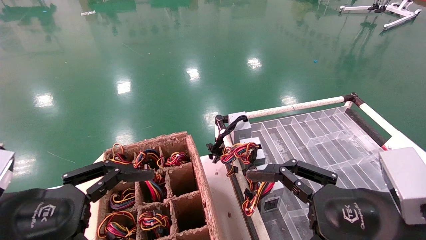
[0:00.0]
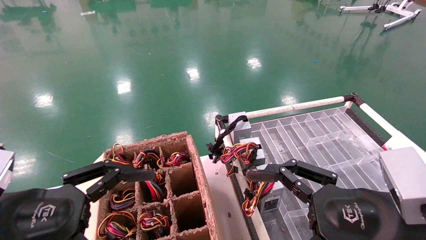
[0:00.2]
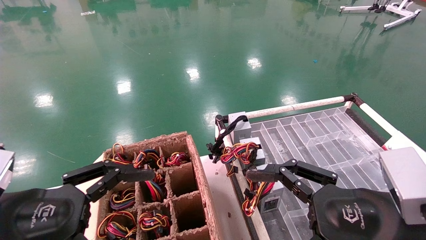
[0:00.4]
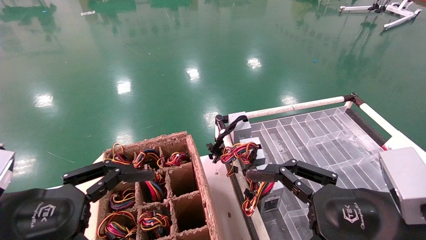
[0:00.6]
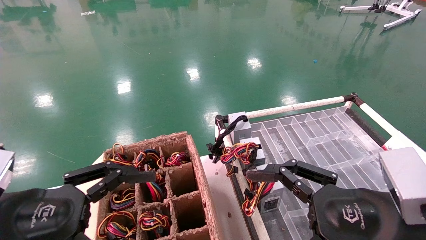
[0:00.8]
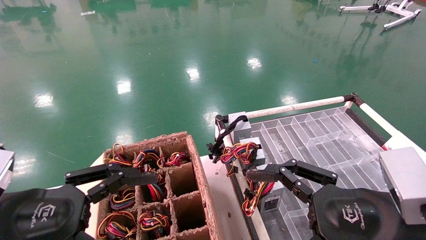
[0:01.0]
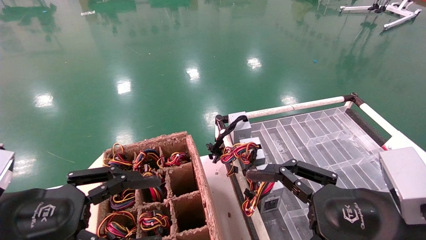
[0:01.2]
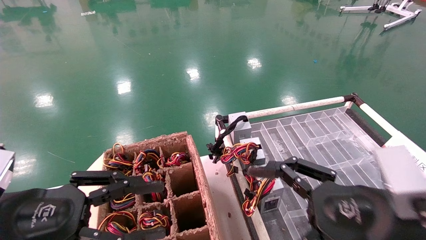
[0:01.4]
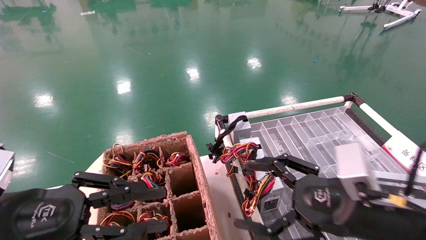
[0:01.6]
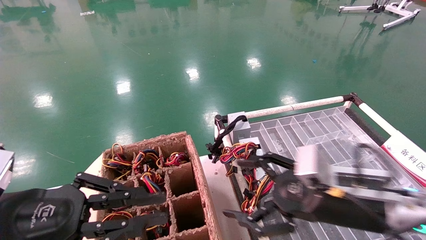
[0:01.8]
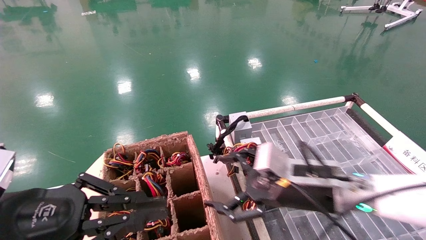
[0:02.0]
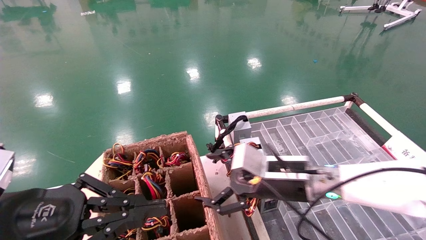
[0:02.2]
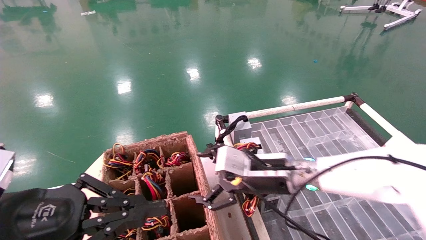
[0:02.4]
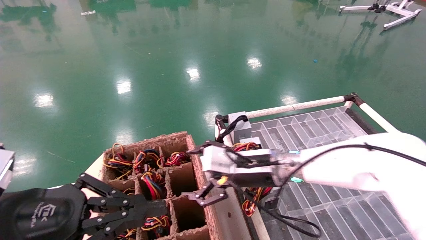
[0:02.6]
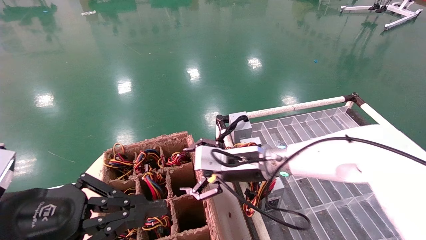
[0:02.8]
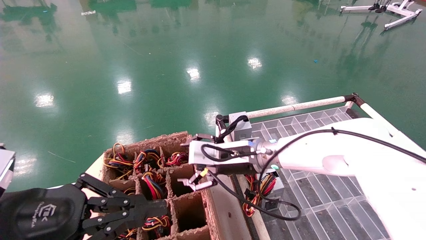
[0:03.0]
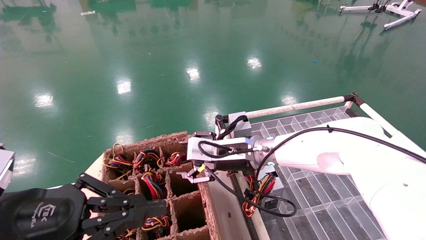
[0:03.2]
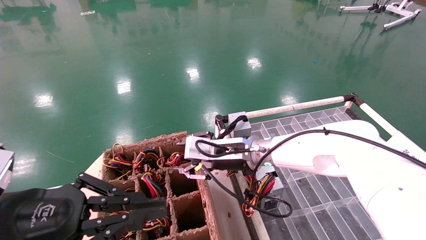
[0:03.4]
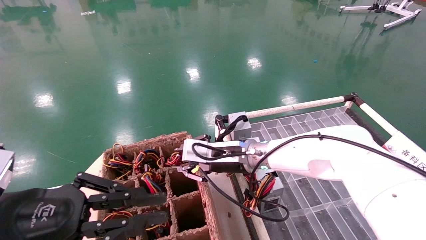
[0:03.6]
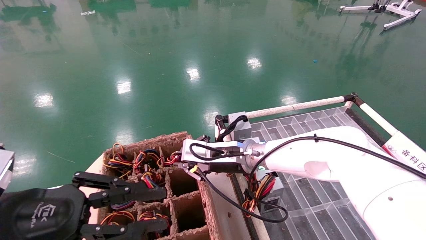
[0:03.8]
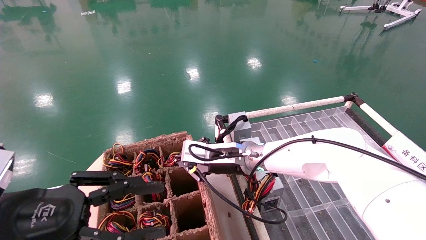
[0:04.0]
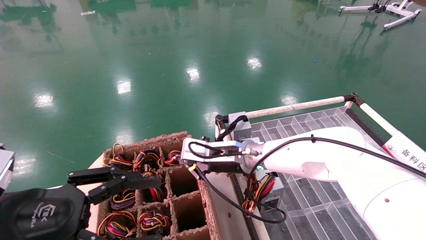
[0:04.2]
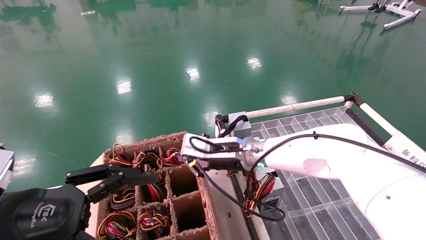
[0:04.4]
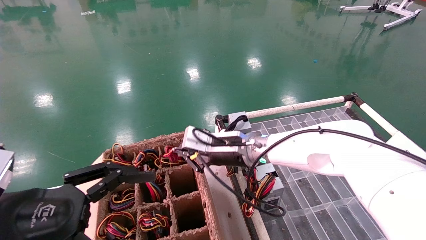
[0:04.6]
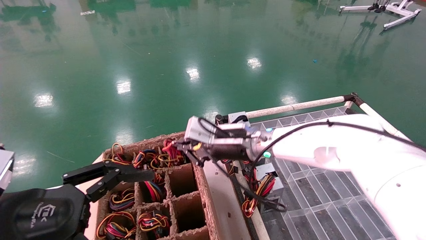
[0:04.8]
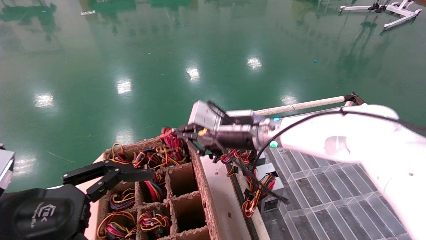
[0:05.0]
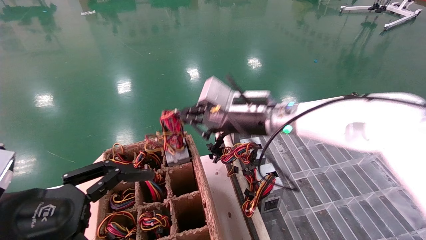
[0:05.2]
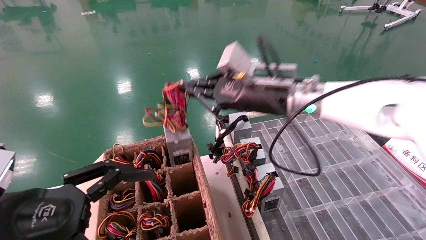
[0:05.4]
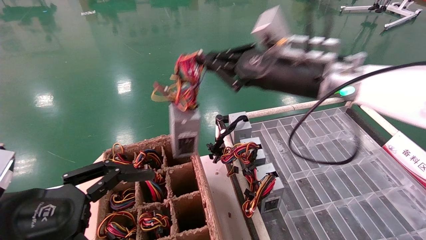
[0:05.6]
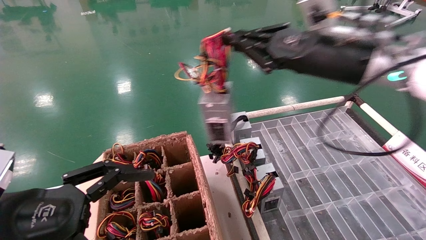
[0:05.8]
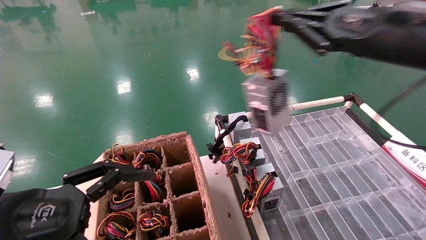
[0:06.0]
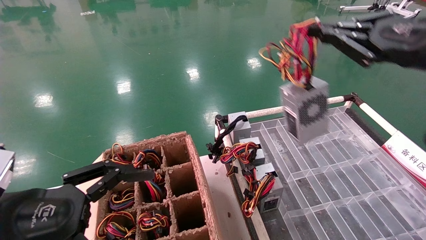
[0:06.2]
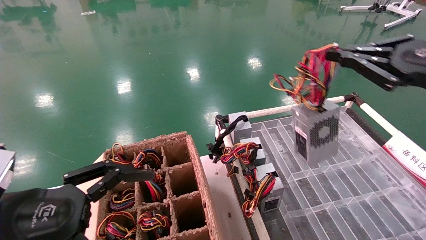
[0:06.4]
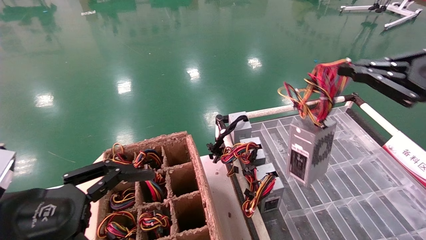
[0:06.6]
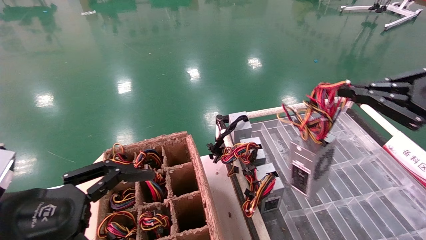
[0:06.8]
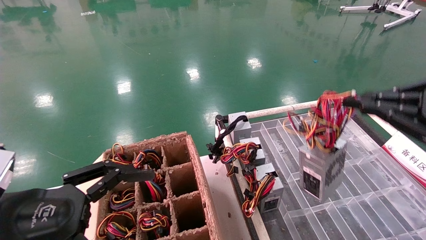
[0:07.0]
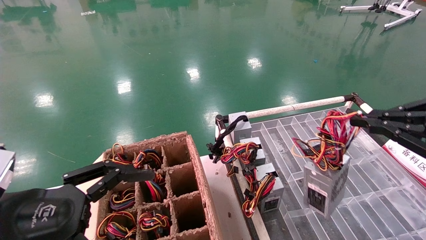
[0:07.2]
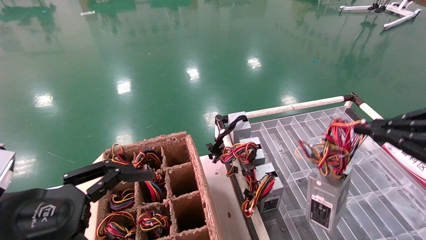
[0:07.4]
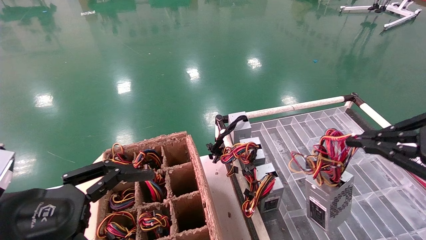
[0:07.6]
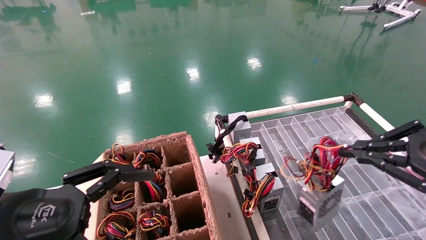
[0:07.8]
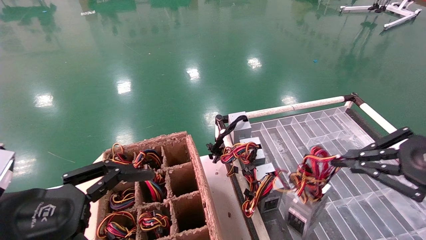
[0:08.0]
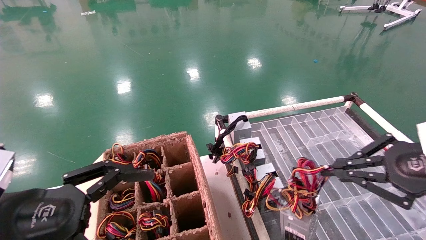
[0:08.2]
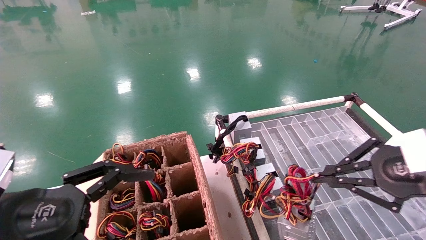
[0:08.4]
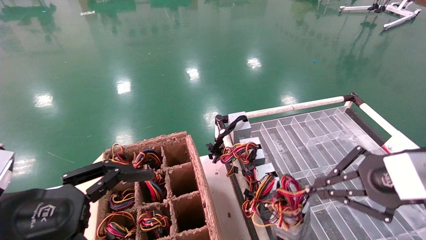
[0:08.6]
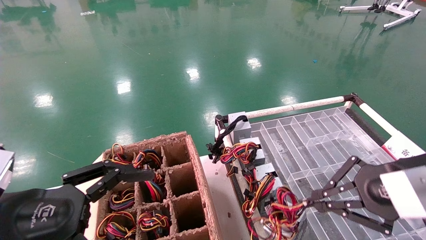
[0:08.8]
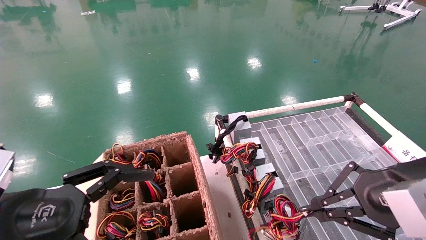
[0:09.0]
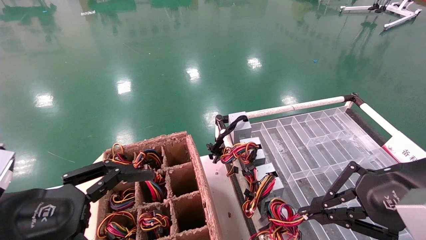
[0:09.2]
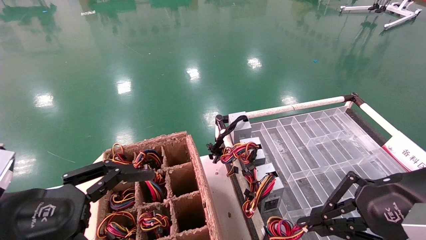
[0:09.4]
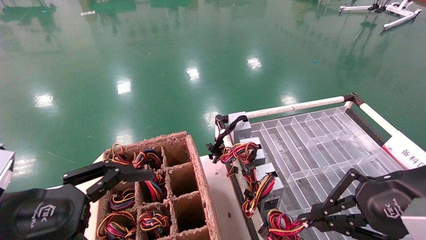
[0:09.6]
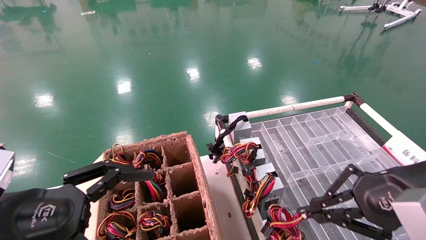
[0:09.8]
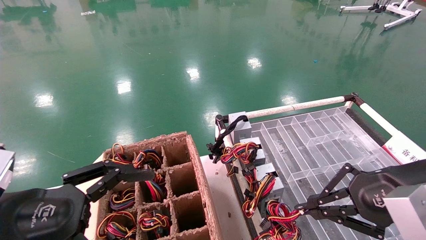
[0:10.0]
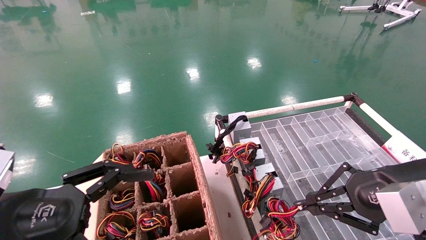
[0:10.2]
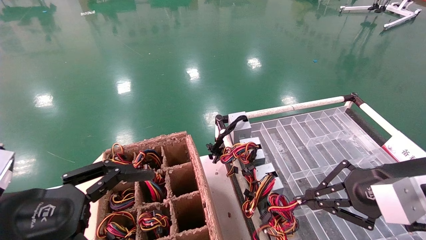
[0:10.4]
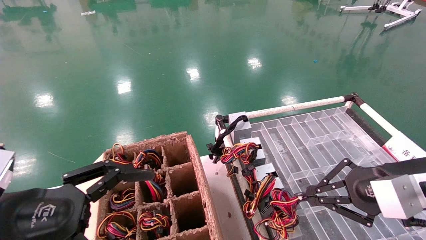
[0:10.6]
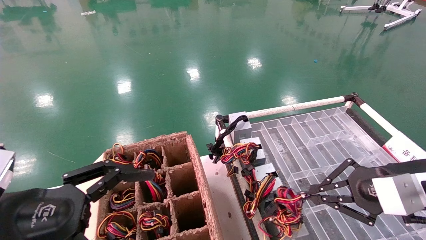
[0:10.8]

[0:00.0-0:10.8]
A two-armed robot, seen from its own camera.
Step, 0:02.4 to 0:04.2: Grab and lift the power supply from the large box.
0:00.0 to 0:01.6: The right gripper moves forward, about 5 cm, while the left gripper closes its fingers.
0:01.6 to 0:03.0: The right gripper shifts approximately 25 cm forward and to the left, while the left gripper closes its fingers.
0:03.0 to 0:04.6: The right gripper closes its fingers, while the left gripper opens up.
0:04.6 to 0:06.2: The right gripper moves to the right, upward and backward, about 35 cm.
0:06.2 to 0:07.8: The right gripper heads downward, backward and to the right, covering roughly 15 cm.
0:07.8 to 0:09.2: The right gripper heads to the left, covering about 10 cm.
0:09.2 to 0:10.8: The right gripper is displaced forward by about 5 cm.

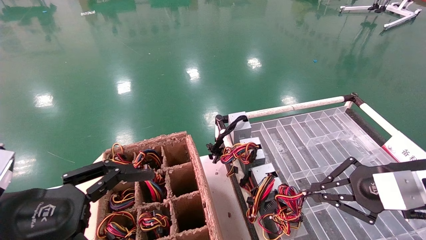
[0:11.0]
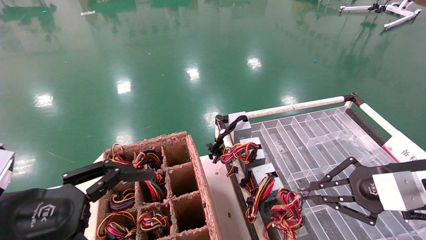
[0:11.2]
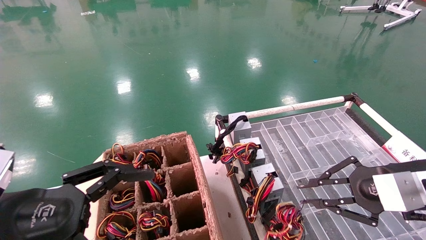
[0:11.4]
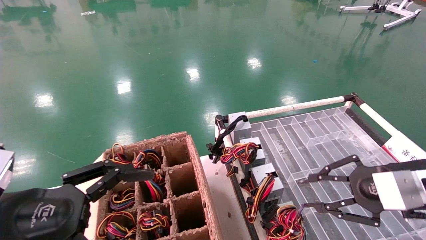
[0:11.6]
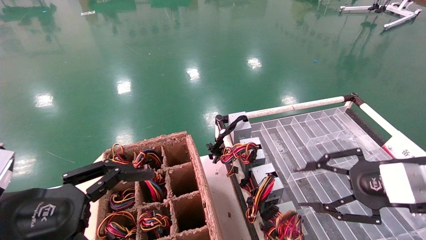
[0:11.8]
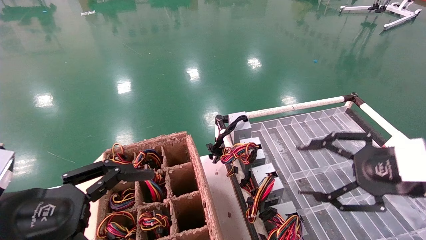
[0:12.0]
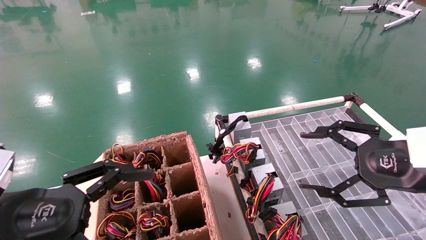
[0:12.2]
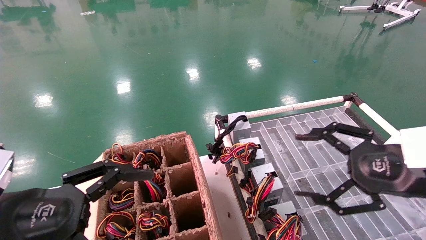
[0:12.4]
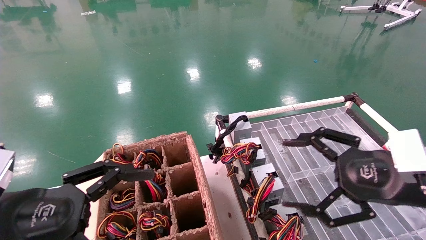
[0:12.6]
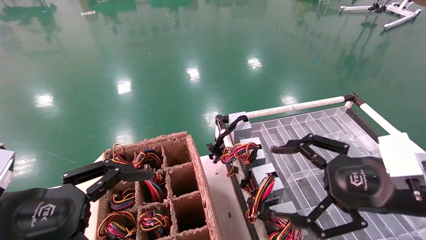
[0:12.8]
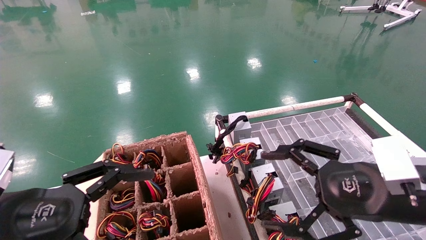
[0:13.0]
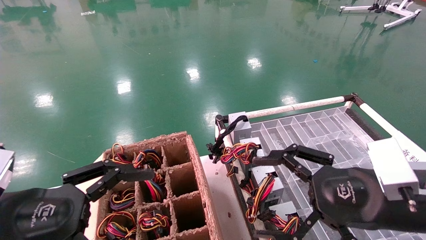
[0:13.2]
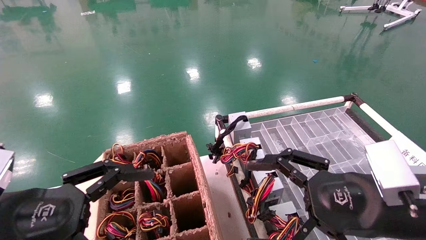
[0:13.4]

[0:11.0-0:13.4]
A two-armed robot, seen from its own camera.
0:11.0 to 0:12.2: The right gripper opens up.
0:12.2 to 0:13.4: The right gripper goes about 10 cm to the left.
